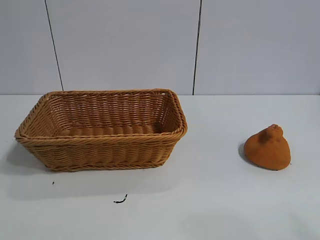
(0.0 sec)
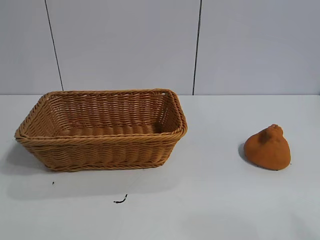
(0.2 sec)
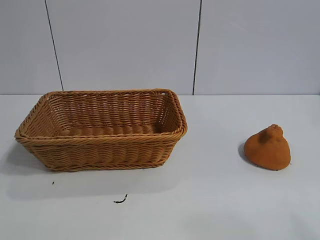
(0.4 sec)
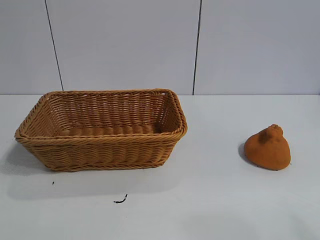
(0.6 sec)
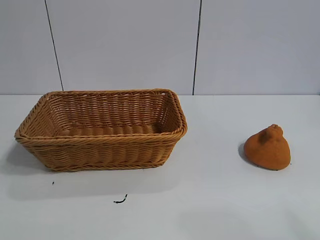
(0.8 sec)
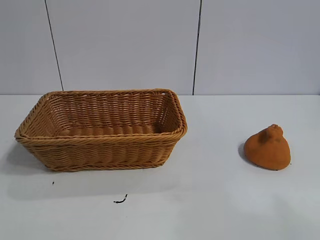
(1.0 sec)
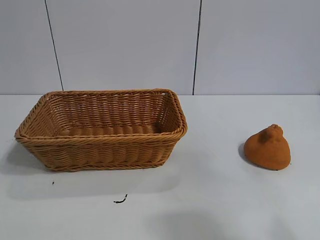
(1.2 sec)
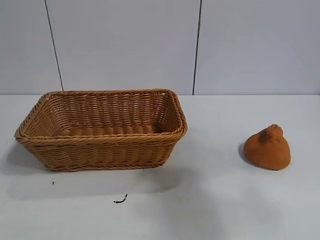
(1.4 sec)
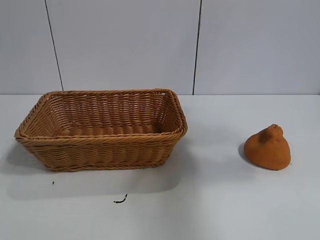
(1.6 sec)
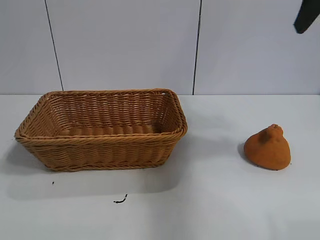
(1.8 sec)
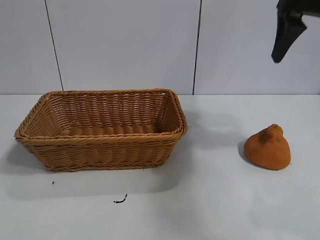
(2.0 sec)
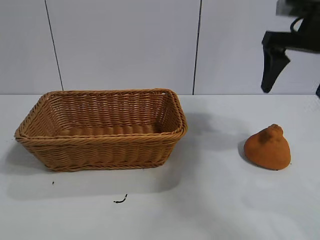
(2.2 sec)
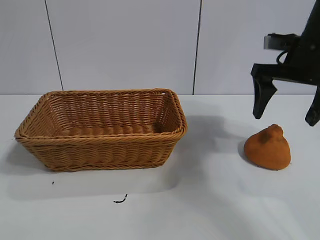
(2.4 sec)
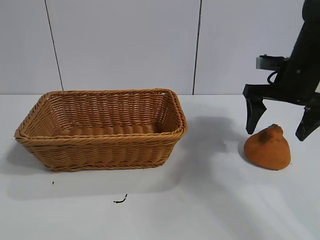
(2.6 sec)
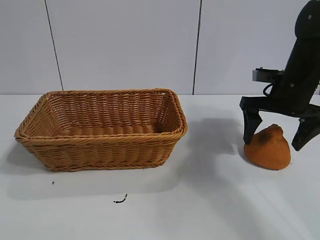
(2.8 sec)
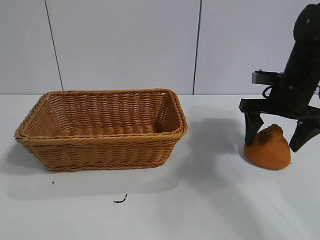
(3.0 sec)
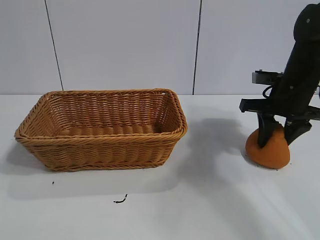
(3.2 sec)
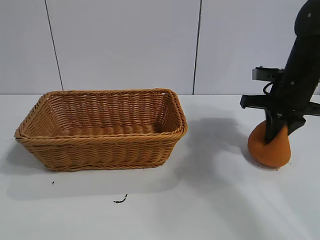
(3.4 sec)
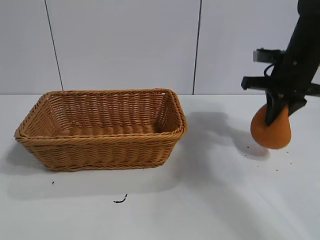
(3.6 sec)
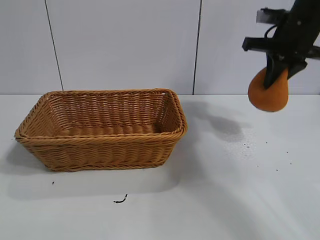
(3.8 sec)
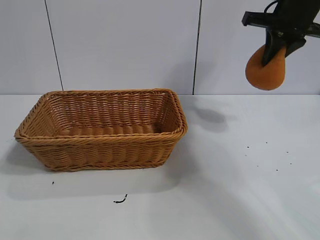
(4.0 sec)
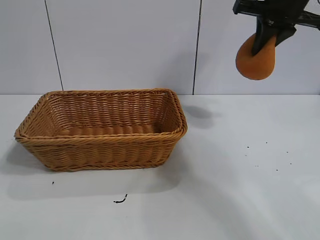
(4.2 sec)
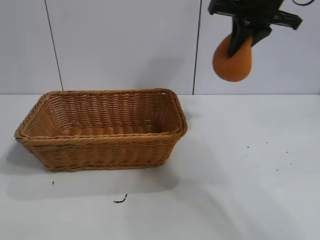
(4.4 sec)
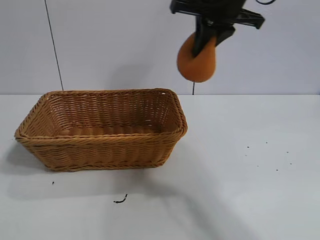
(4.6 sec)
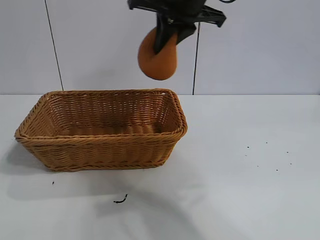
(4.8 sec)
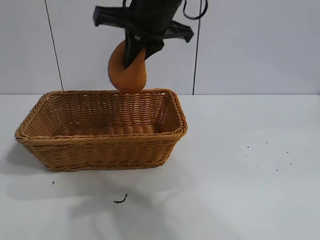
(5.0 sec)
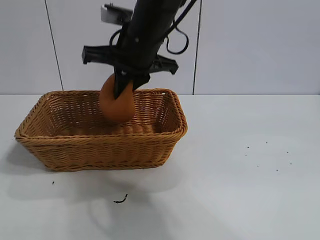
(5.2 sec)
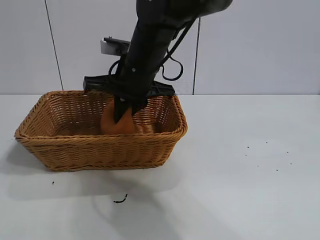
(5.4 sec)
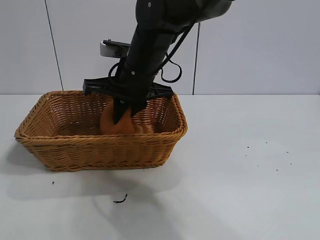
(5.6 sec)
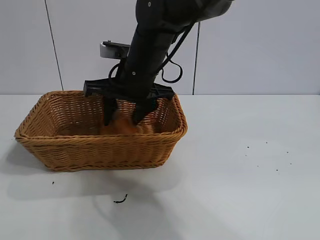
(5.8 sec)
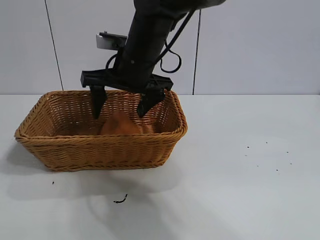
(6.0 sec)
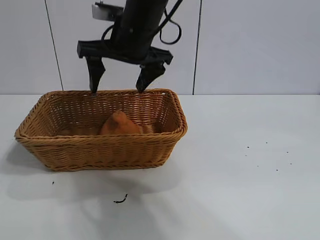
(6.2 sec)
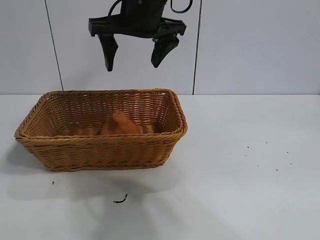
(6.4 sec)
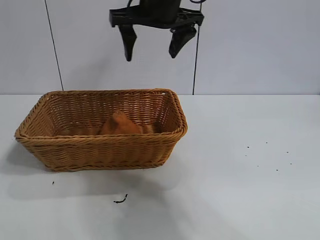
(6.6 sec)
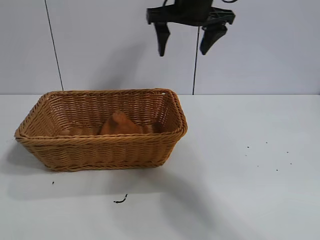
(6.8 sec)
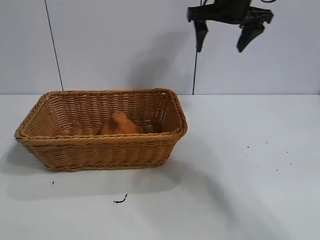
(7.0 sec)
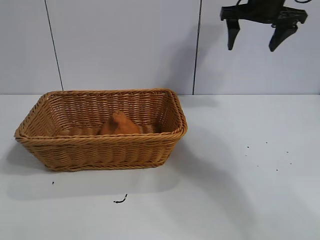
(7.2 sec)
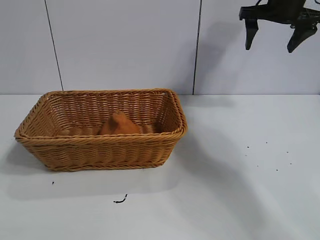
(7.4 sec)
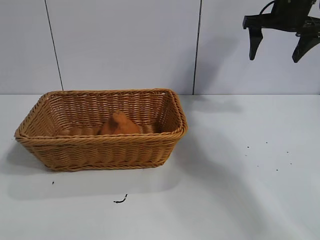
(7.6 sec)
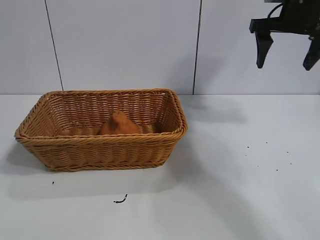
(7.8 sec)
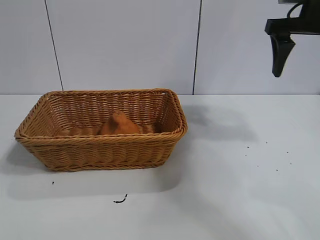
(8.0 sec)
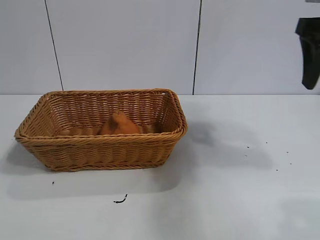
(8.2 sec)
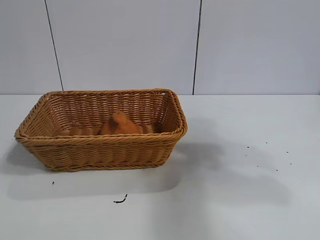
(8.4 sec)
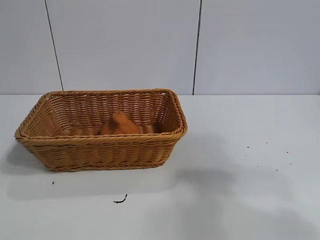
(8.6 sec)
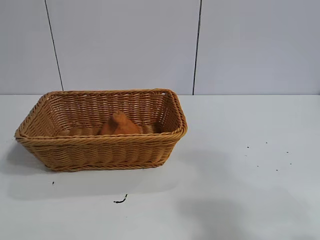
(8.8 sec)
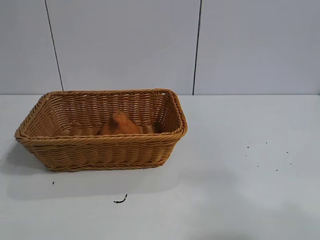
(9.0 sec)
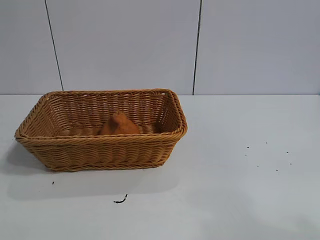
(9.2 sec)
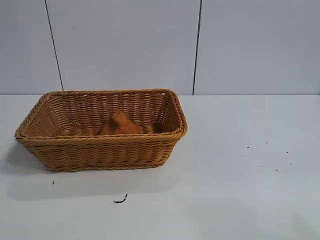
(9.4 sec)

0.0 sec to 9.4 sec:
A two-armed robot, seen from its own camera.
Task of the whole recording: pick up the orange and put it into the basket.
Step, 0.8 sec to 3.2 sec: Grasp the orange with right gripper.
Step, 3.4 sec to 6.0 sec: Place the orange in the basket with right gripper.
